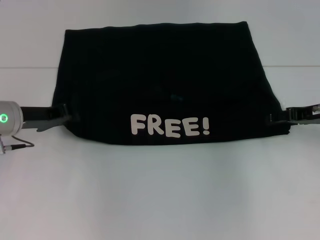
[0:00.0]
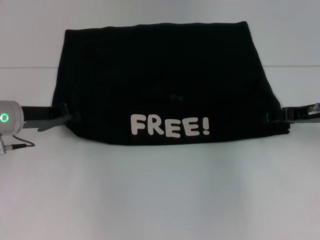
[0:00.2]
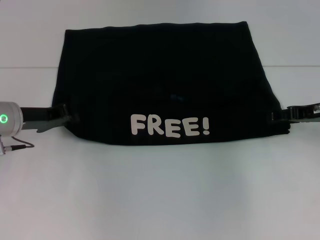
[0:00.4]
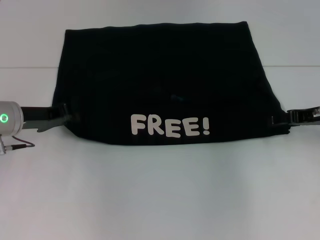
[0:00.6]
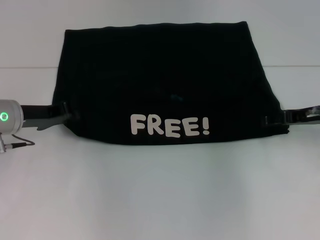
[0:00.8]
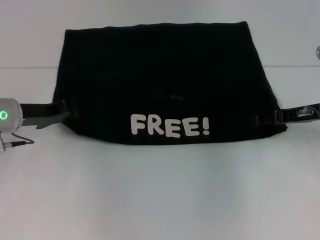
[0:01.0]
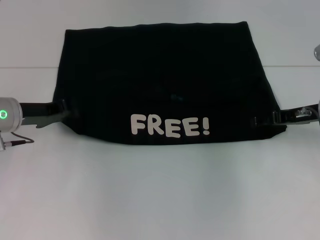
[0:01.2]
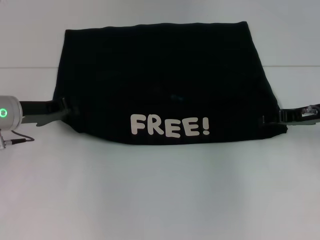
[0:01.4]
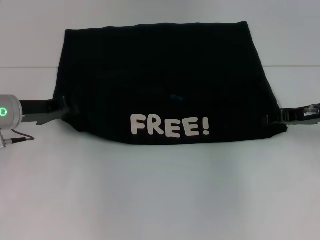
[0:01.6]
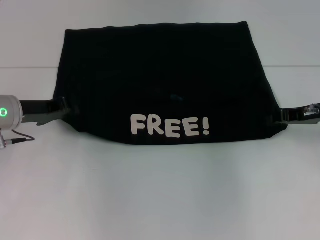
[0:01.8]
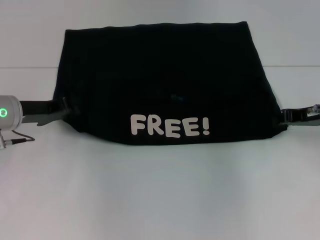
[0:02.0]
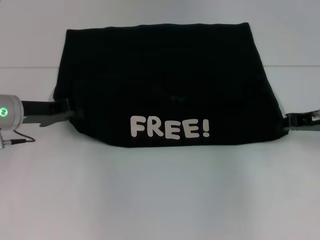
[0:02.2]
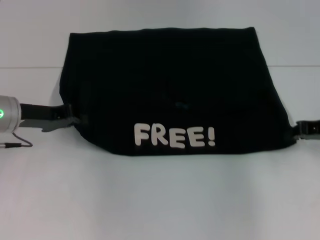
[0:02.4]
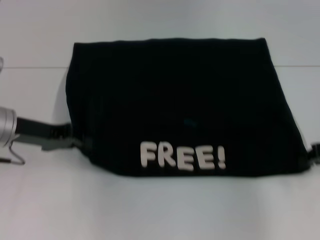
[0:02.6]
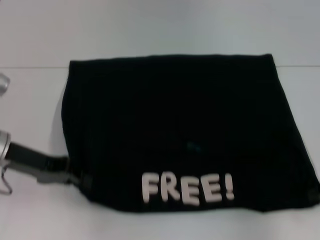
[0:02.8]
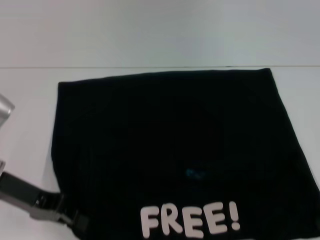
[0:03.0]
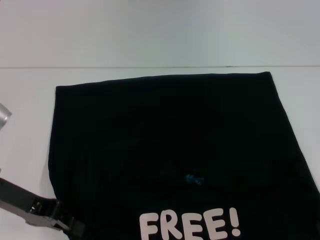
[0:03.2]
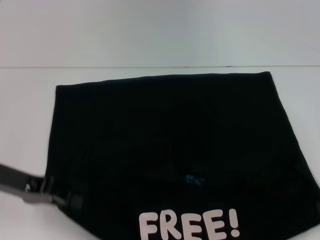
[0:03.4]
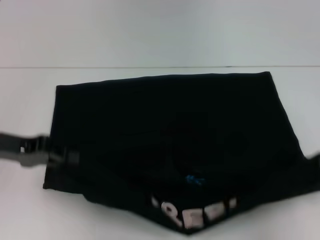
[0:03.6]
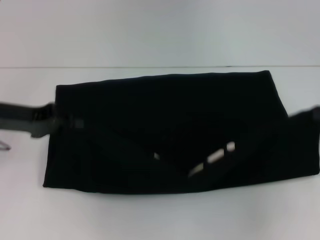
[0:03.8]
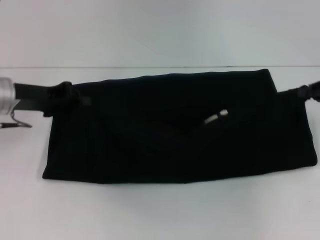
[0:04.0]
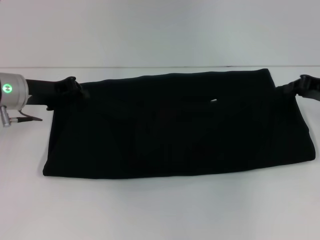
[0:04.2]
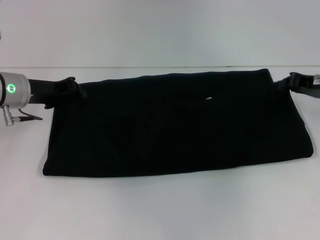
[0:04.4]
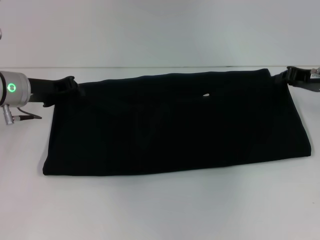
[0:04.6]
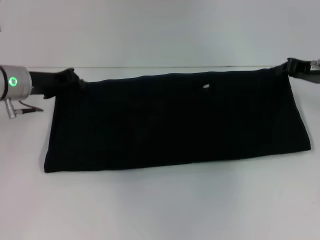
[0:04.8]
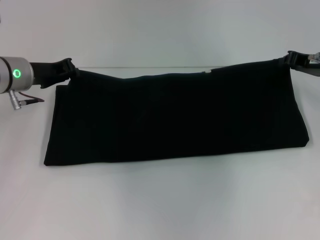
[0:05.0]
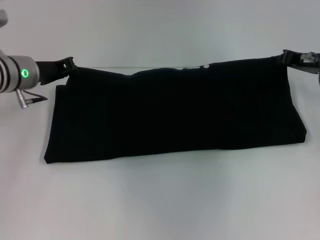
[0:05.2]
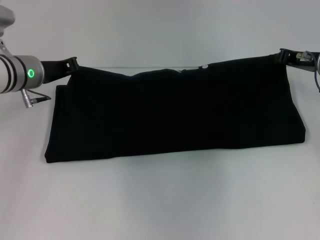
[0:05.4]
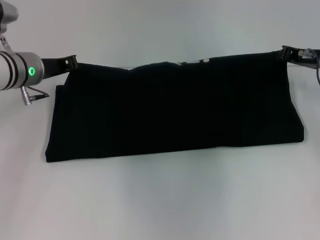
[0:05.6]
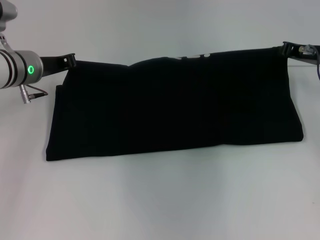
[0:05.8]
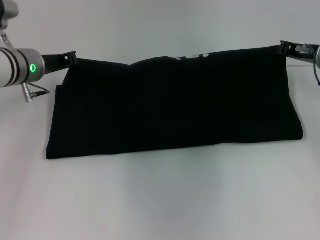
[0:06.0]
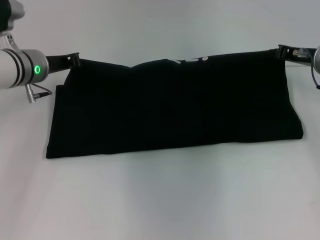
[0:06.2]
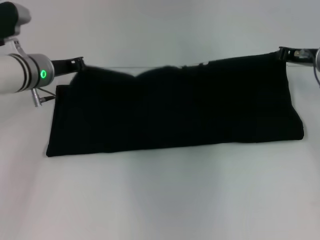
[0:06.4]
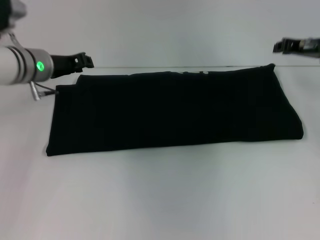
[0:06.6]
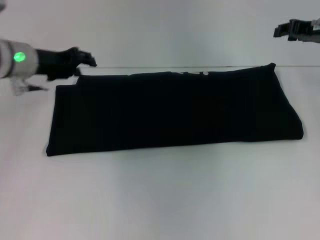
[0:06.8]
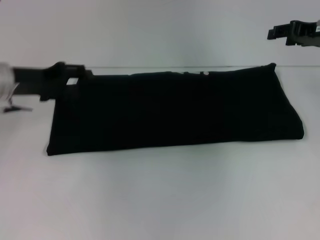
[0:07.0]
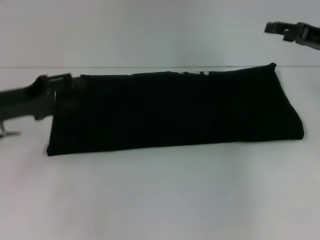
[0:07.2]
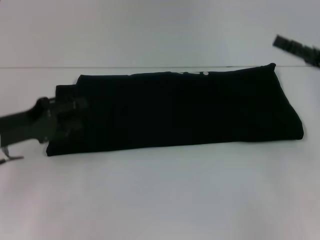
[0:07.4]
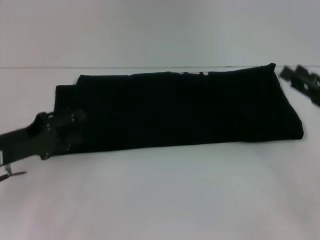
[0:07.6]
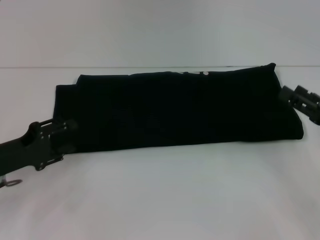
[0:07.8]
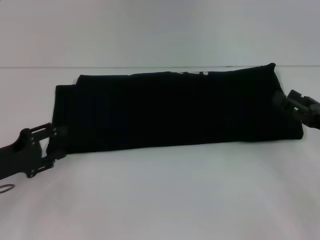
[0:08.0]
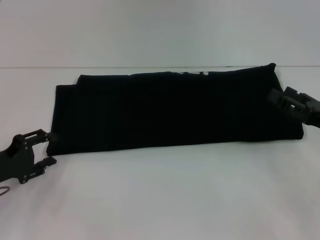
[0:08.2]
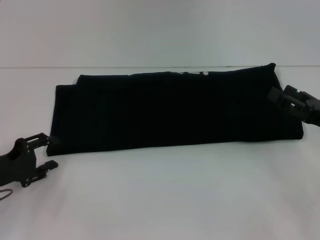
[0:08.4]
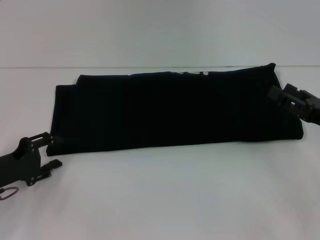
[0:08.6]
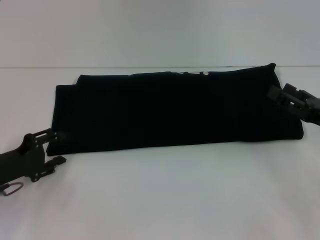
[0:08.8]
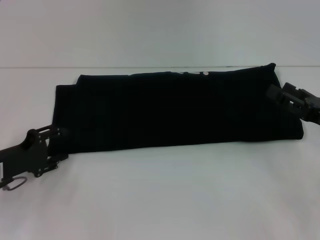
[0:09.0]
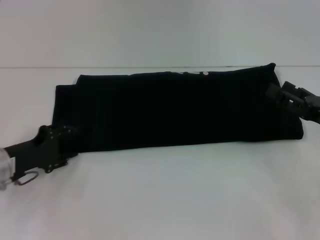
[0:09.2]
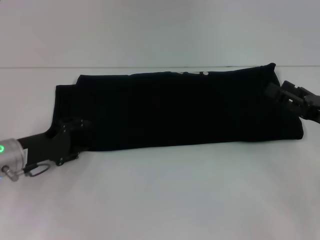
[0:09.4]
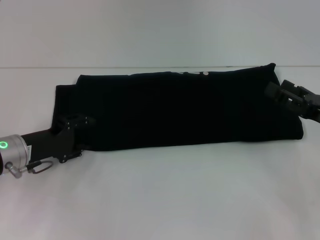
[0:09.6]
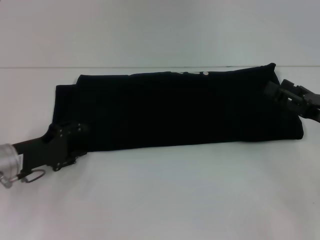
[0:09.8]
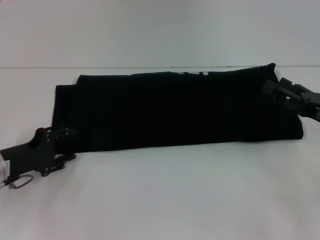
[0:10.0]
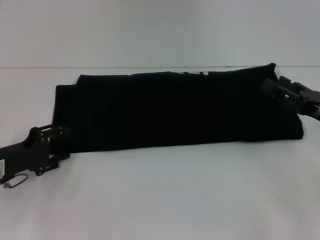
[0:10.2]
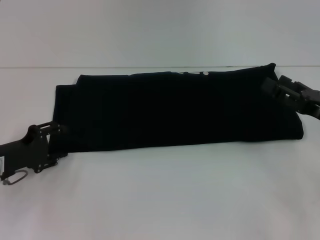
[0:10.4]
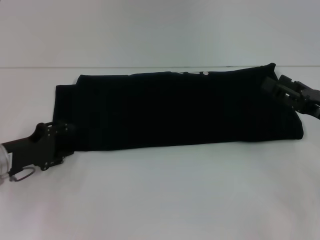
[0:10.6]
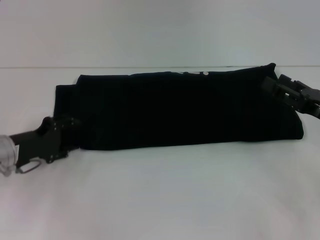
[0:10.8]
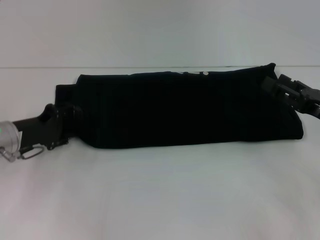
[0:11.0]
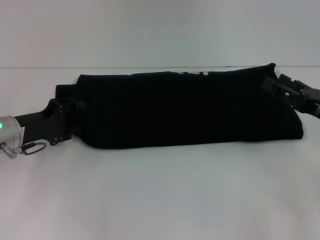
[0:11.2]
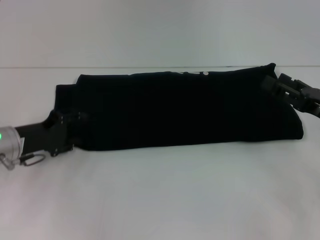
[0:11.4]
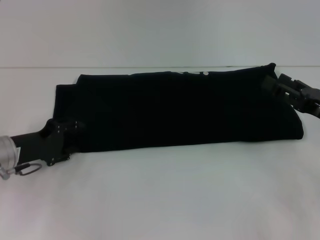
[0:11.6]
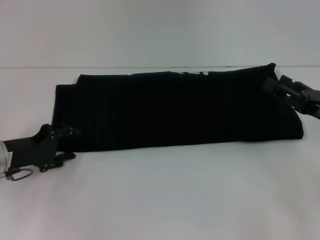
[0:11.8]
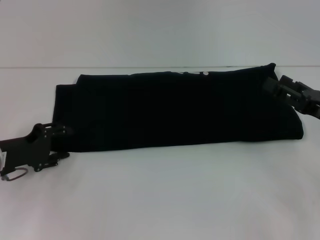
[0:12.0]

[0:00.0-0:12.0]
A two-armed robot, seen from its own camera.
Step, 0:00.0 to 0:02.8: Pull the clothes with your left hand.
Step, 0:00.0 to 0:02.8: Pull the clothes with your right hand.
Step, 0:03.0 to 0:06.4: Fold the clothes with your right hand.
0:00.0 to 0:01.6: The grippers move only a little.
0:01.6 to 0:03.0: The left gripper travels backward by some 10 cm. The right gripper is displaced backward and to the right by some 15 cm, and closes.
0:03.0 to 0:04.4: Both grippers move forward, approximately 10 cm.
0:04.4 to 0:06.0: The right gripper changes place by roughly 5 cm.
0:06.0 to 0:07.6: The left gripper is displaced backward and to the left by some 15 cm, and opens up. Meanwhile the right gripper goes some 15 cm backward, and opens.
0:09.0 to 0:10.4: The grippers stay close to where they were, moving slightly.
0:10.4 to 0:12.0: The grippers stay close to where they were, moving slightly.

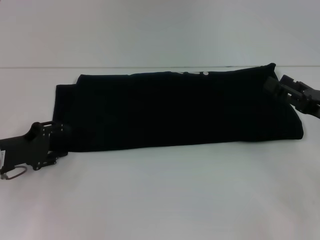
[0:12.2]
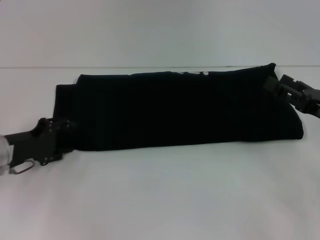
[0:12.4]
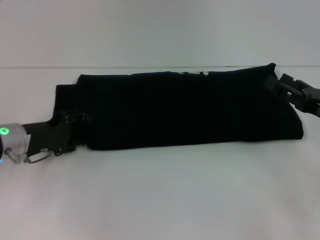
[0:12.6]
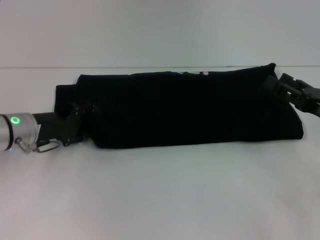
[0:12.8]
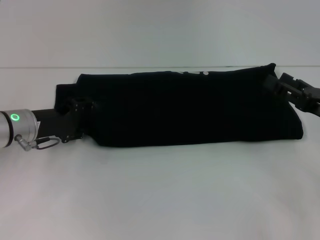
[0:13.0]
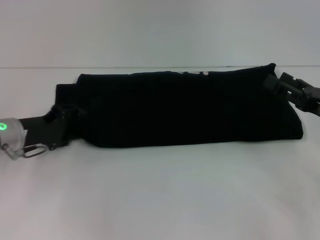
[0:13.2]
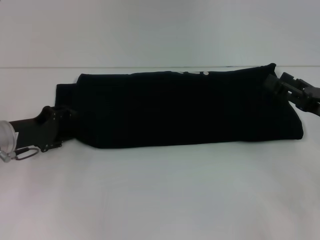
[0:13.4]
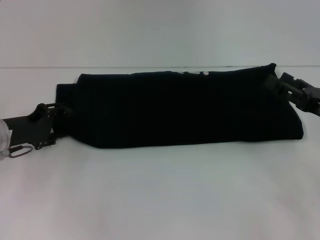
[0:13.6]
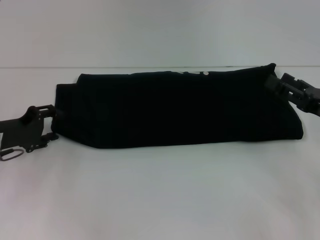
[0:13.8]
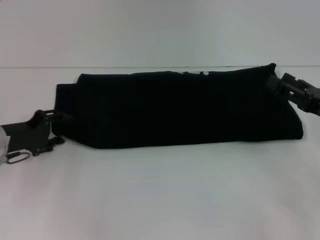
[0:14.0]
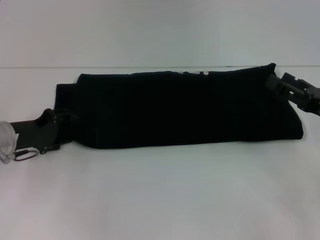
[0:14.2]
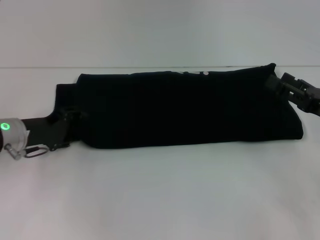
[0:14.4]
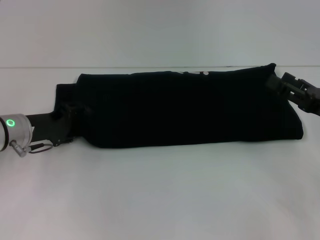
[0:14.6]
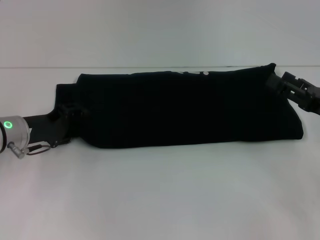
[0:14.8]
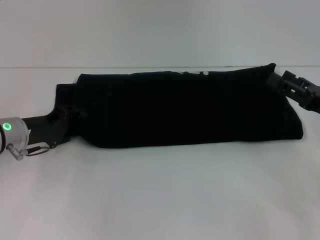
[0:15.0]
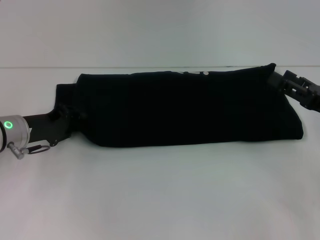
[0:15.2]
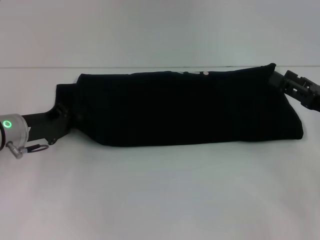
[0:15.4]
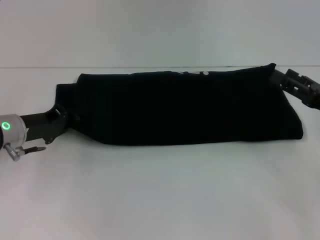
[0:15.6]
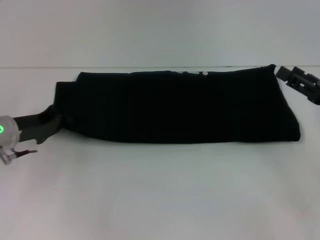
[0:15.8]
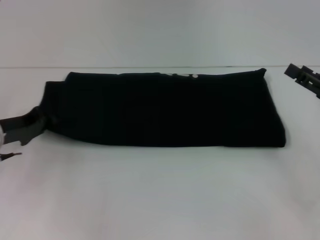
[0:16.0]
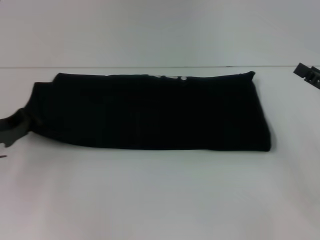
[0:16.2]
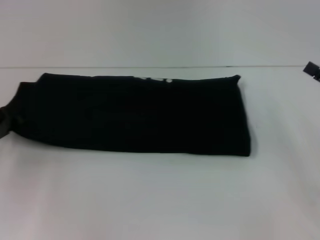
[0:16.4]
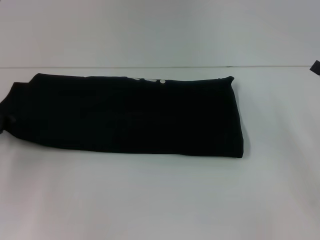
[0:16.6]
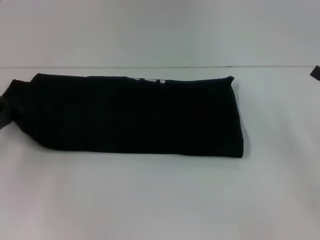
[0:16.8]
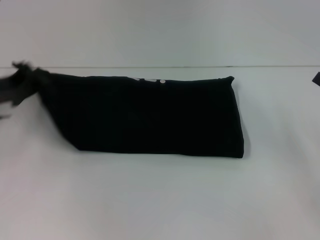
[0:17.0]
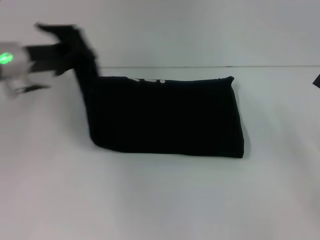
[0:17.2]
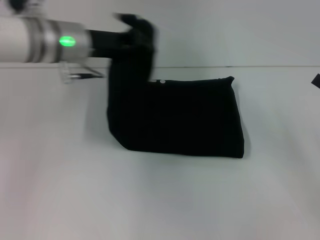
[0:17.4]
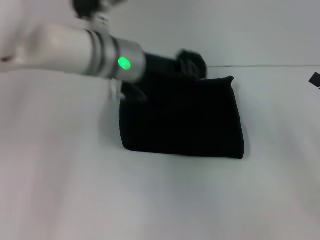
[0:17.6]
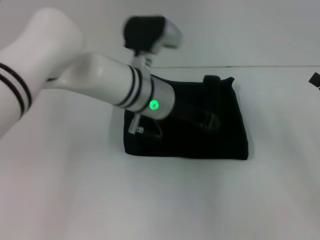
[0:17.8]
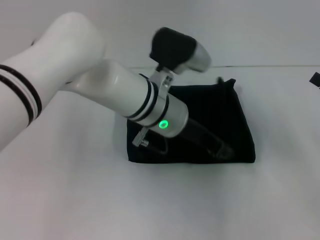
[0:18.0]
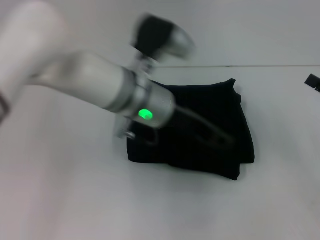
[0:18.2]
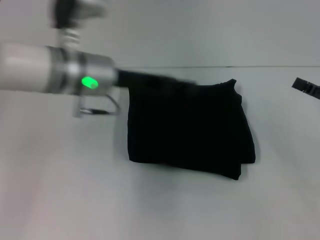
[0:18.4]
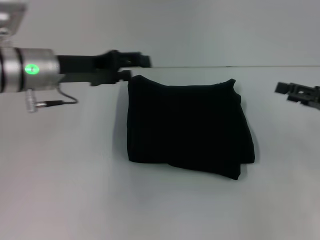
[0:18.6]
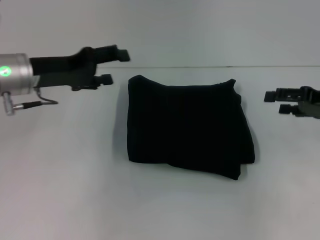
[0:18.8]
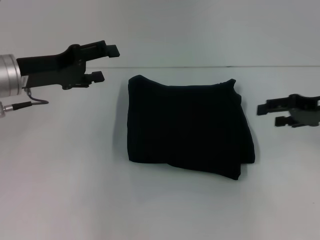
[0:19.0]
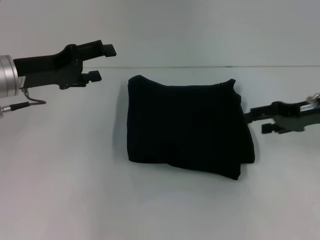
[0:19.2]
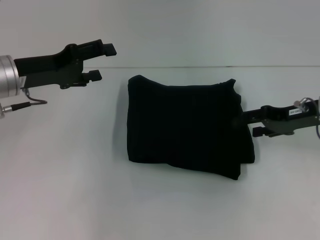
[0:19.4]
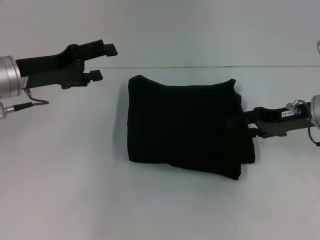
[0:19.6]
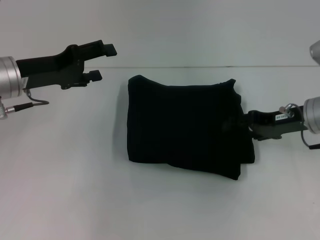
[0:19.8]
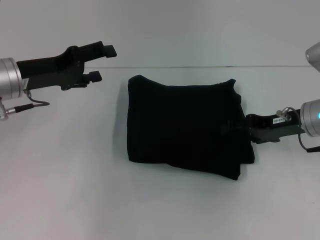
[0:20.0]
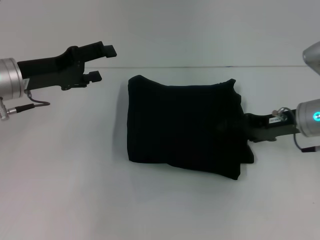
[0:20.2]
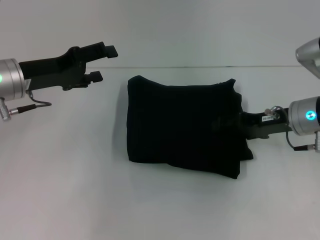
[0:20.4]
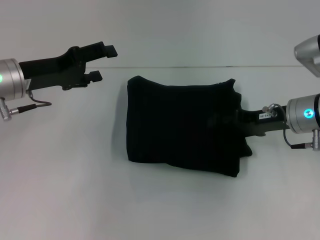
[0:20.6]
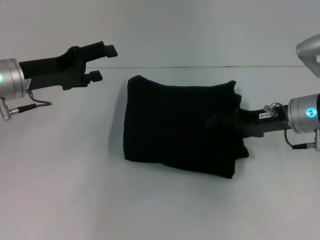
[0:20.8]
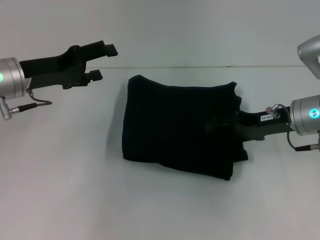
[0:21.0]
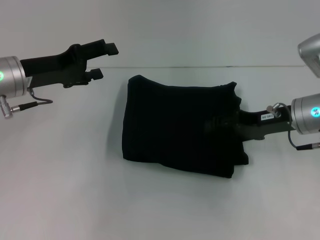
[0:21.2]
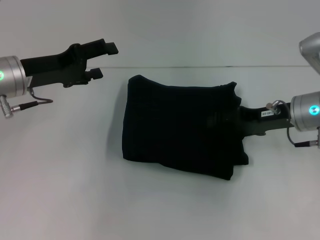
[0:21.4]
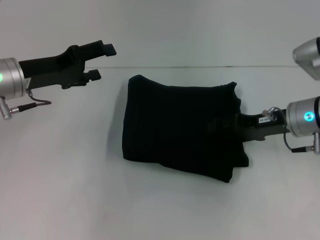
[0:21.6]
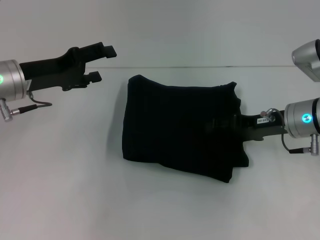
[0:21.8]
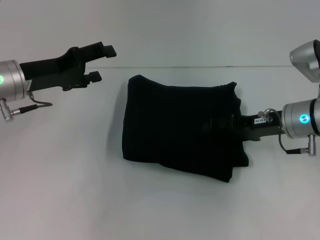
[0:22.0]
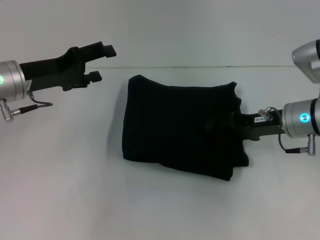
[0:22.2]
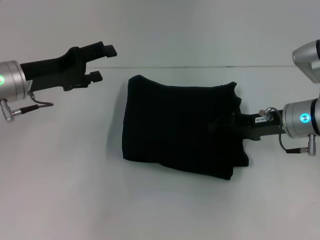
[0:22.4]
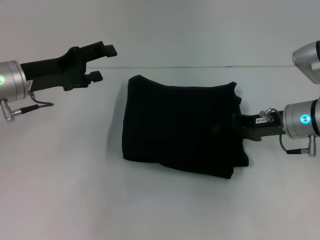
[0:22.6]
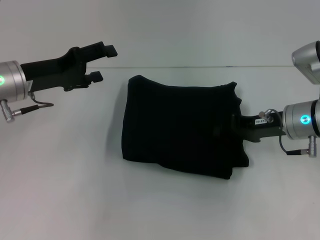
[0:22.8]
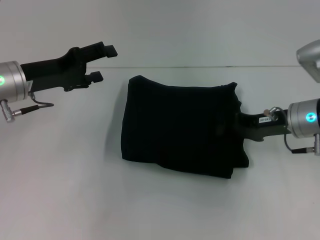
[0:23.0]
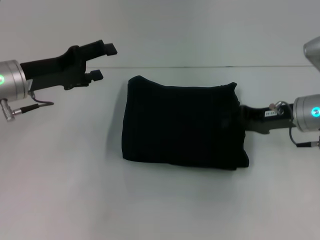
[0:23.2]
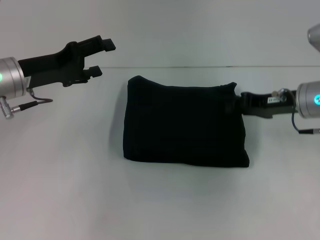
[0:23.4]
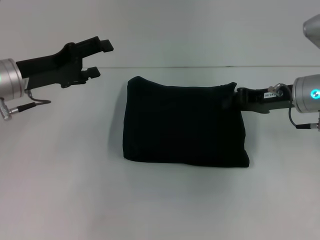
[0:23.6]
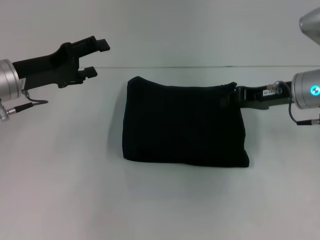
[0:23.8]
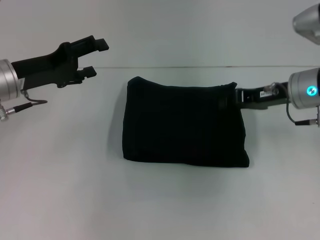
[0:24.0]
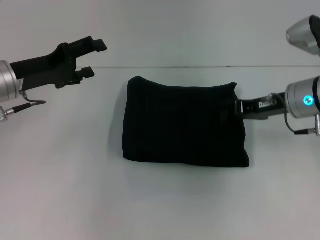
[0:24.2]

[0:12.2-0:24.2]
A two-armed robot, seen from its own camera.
Step, 0:12.2 to 0:18.0: Fold the clothes with your left hand.
0:13.8 to 0:15.2: The grippers make only small movements.
0:15.2 to 0:16.6: The left gripper moves to the left, approximately 10 cm, and closes up.
0:16.6 to 0:18.2: The left gripper goes some 30 cm to the right.
0:18.2 to 0:19.8: The left gripper heads to the left, covering approximately 20 cm, and opens, while the right gripper heads to the left and forward, covering roughly 15 cm.
0:19.8 to 0:21.2: The grippers make only small movements.
0:21.2 to 0:22.6: The right gripper closes.
0:22.6 to 0:24.2: The right gripper closes up.
